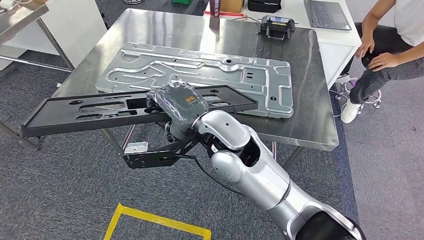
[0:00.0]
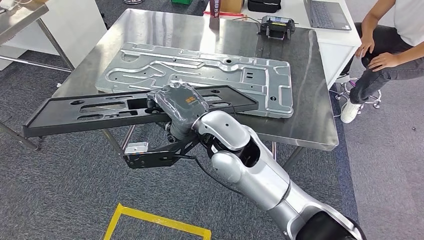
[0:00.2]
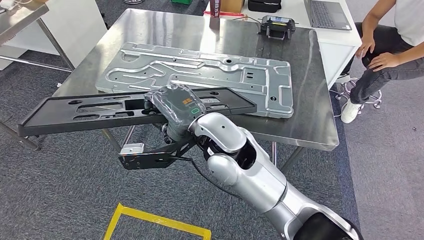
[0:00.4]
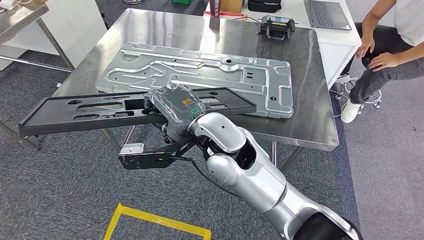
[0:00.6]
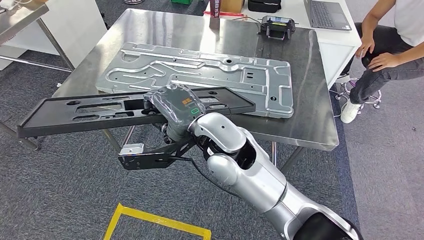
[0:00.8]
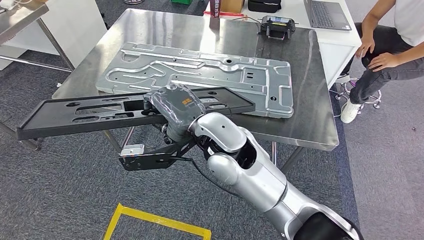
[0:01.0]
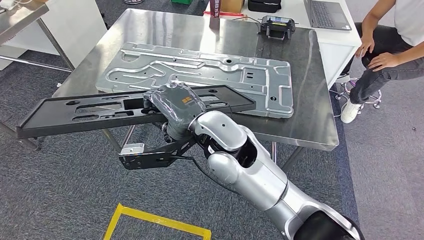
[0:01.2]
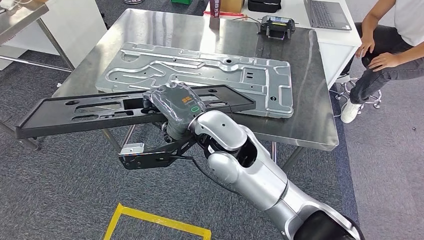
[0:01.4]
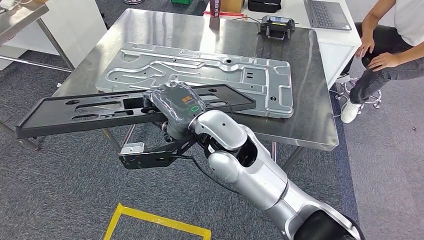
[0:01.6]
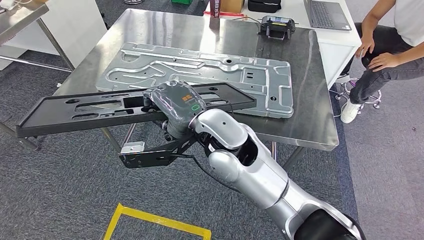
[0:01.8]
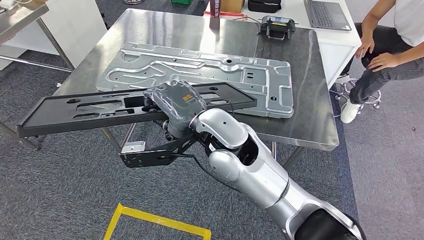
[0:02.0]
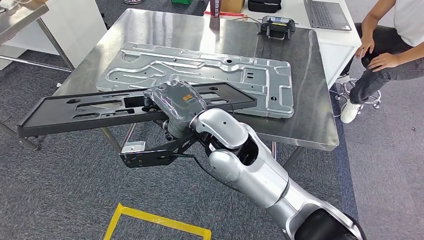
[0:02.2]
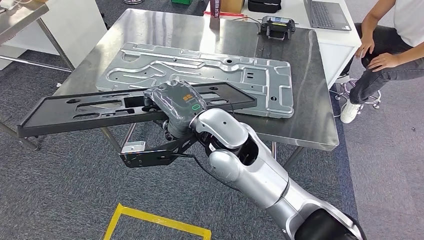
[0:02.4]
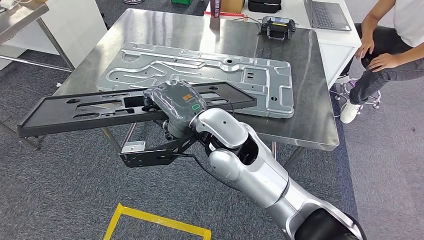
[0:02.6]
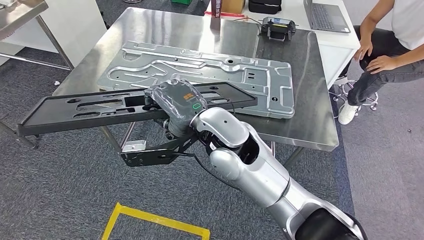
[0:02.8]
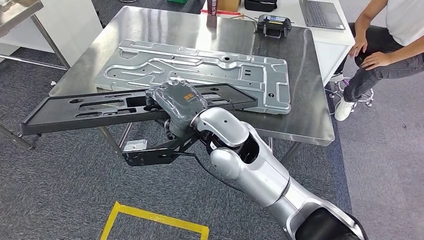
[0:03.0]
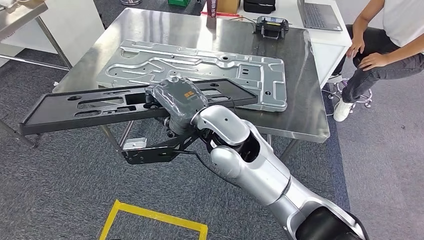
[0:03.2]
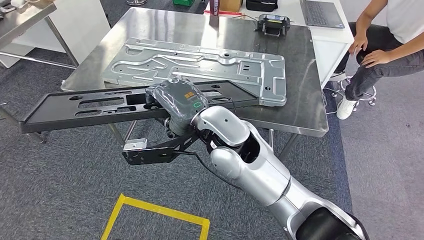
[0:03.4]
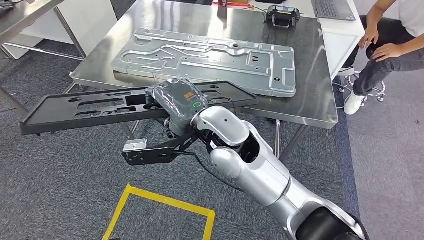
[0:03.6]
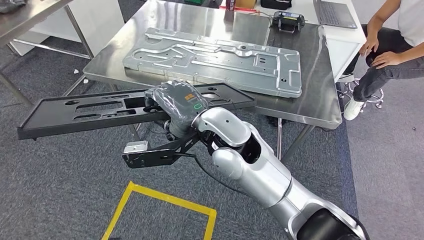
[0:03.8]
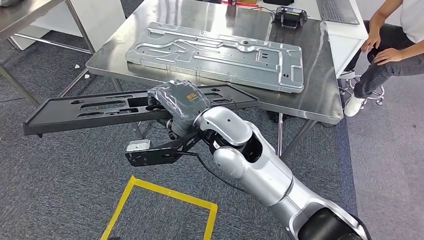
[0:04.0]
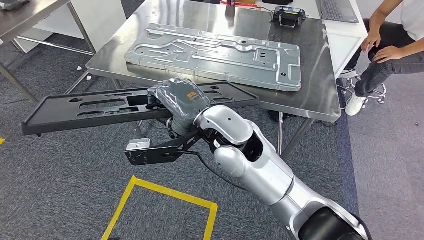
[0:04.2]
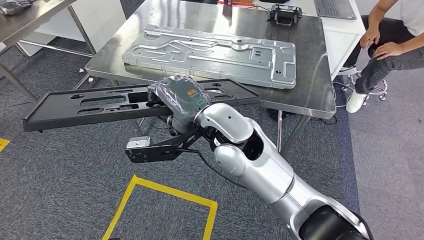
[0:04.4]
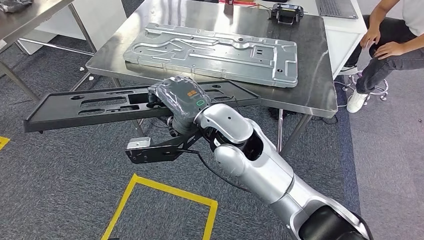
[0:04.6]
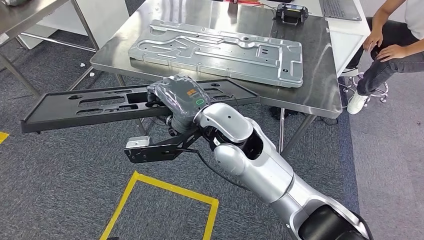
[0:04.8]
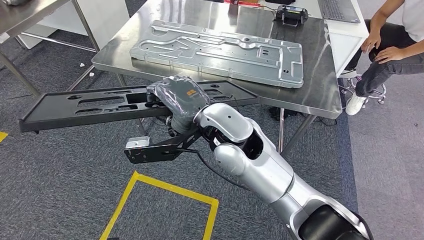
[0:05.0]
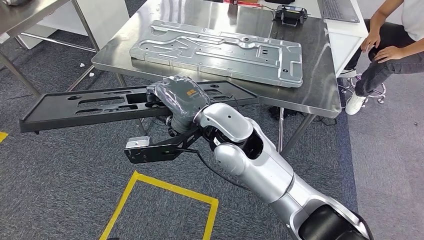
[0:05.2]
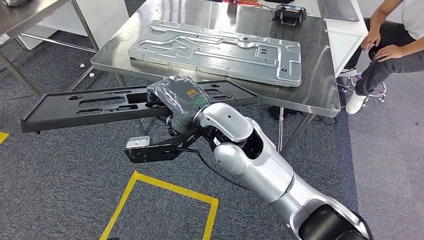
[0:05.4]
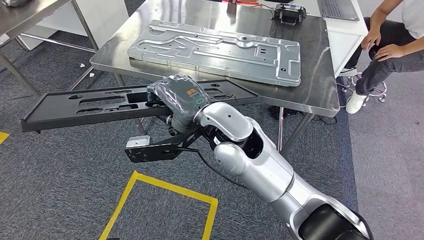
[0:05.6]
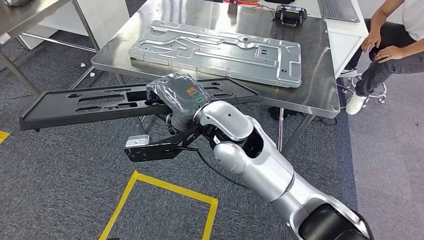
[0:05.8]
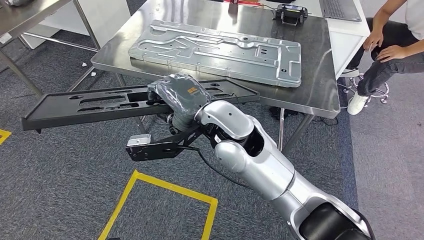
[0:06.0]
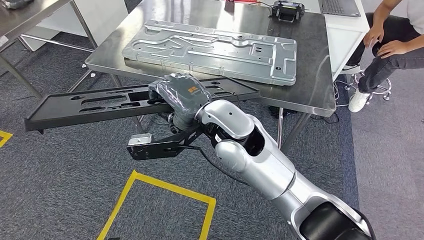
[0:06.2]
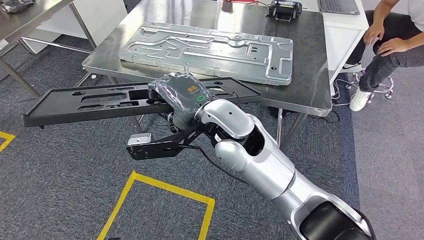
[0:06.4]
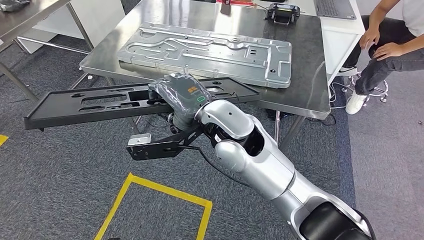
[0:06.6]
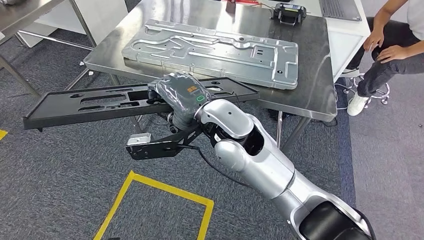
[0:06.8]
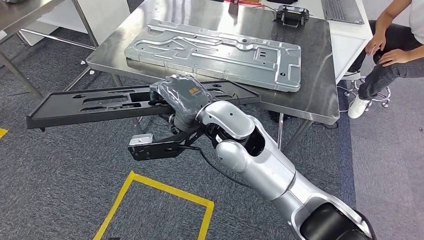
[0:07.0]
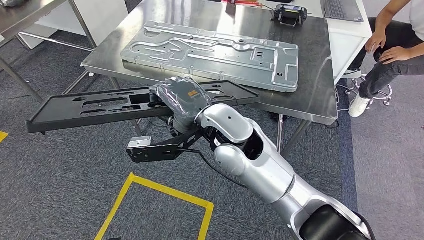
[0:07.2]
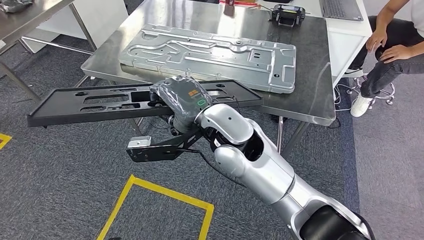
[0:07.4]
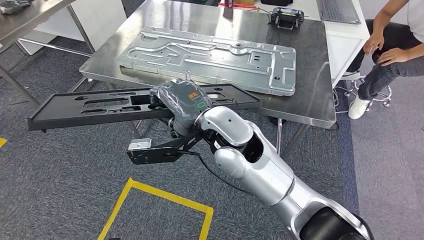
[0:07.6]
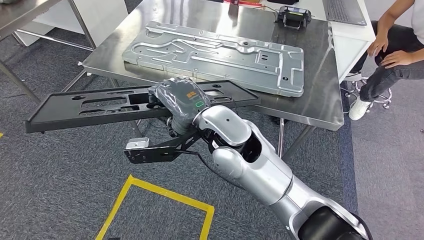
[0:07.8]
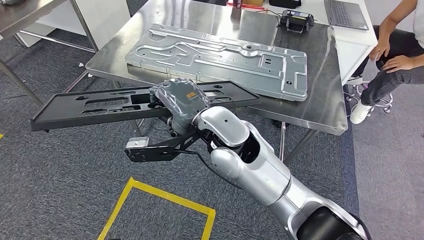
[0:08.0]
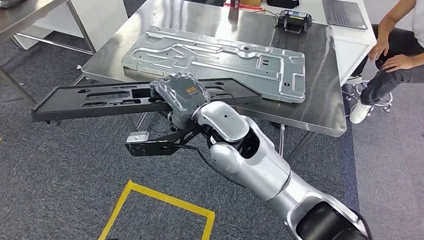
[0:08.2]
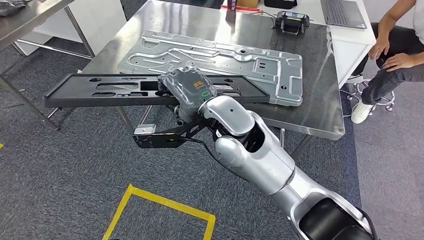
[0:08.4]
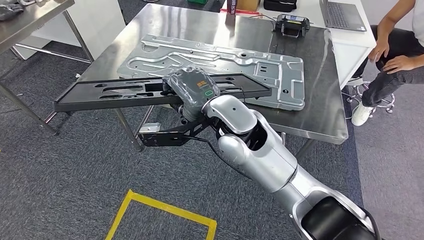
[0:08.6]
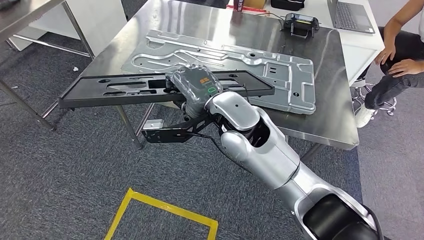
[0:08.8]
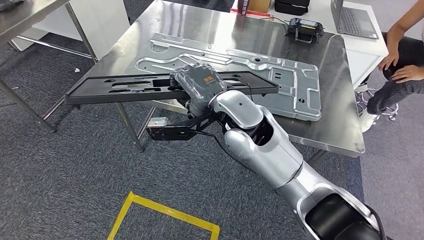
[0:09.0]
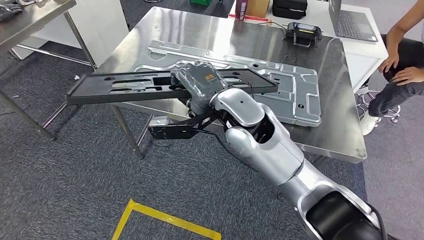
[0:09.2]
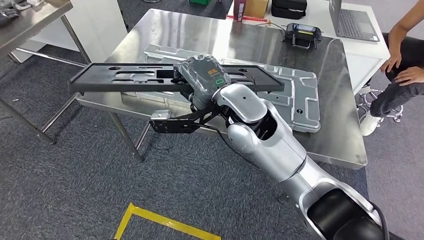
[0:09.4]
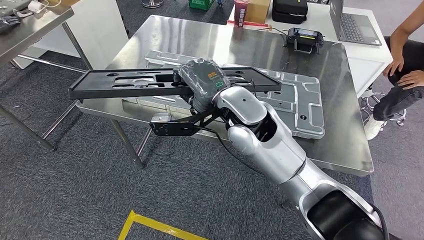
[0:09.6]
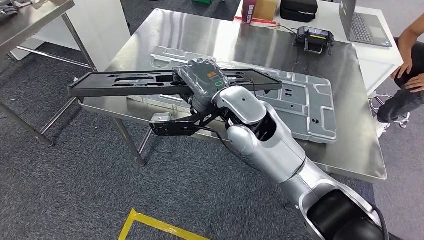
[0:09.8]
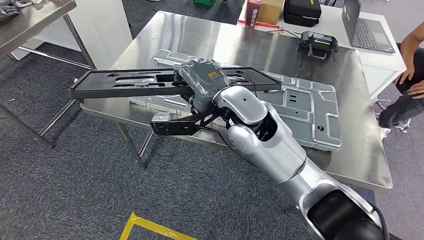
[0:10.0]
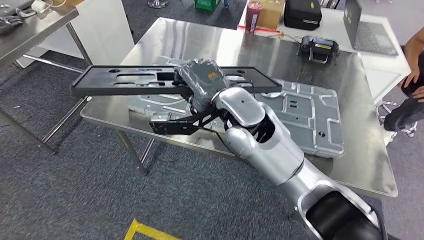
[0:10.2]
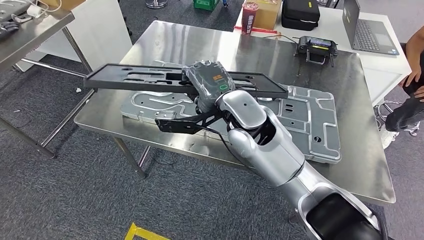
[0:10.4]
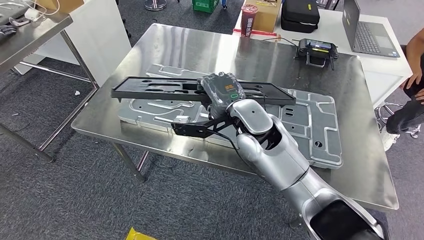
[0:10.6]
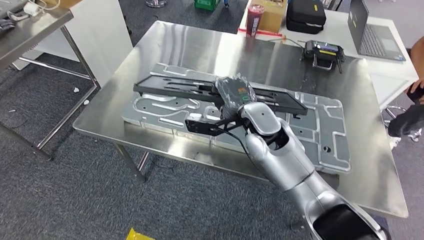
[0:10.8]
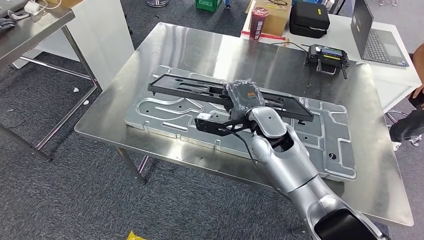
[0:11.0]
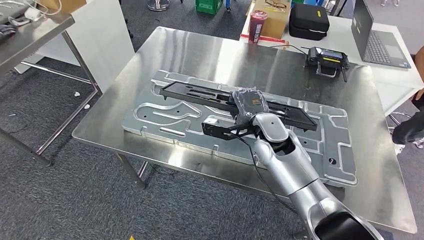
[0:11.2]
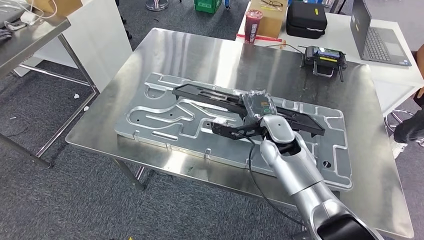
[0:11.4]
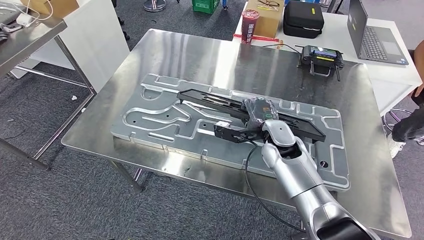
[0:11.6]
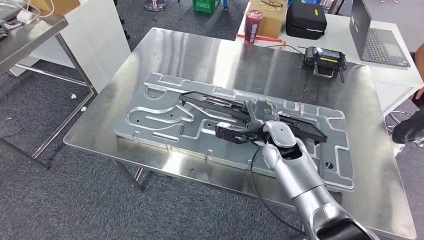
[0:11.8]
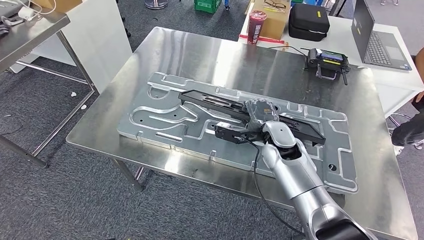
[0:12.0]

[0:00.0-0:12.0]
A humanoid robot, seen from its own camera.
0:00.0 to 0:01.6: Neither hand changes place.

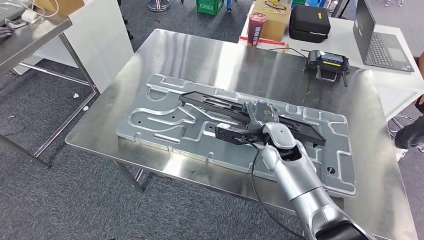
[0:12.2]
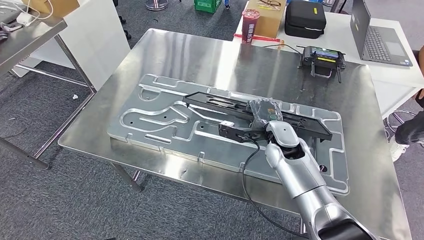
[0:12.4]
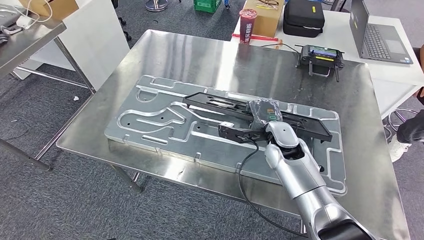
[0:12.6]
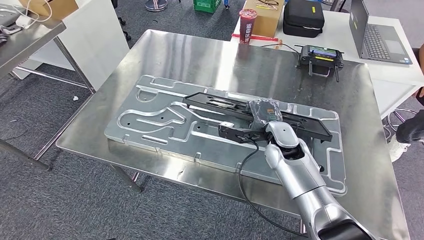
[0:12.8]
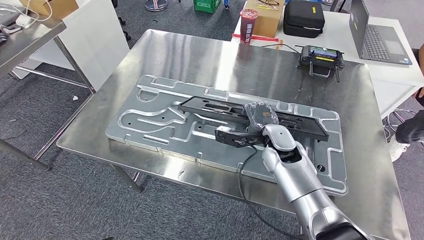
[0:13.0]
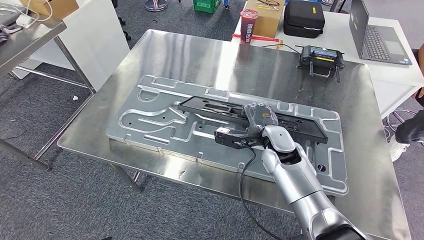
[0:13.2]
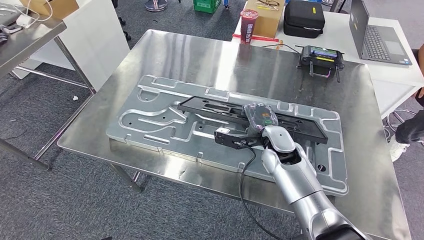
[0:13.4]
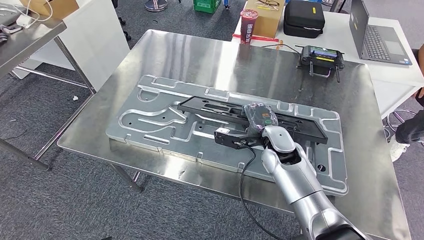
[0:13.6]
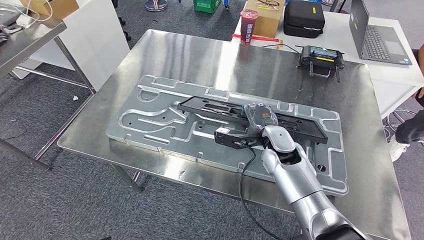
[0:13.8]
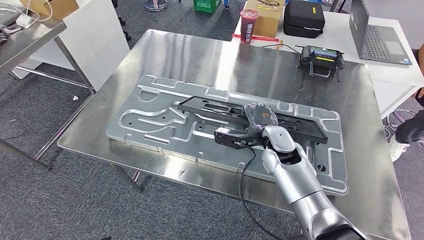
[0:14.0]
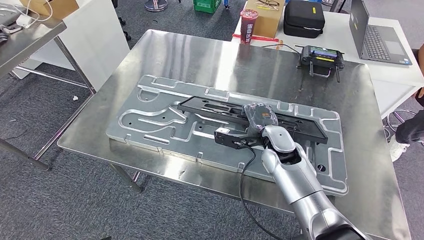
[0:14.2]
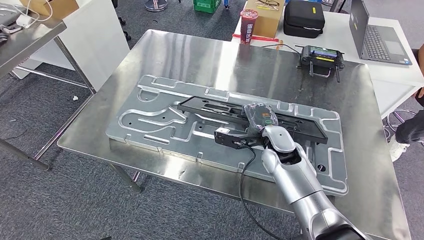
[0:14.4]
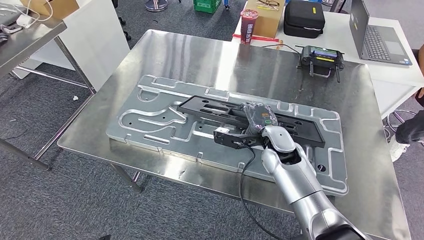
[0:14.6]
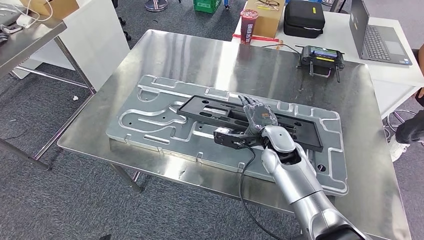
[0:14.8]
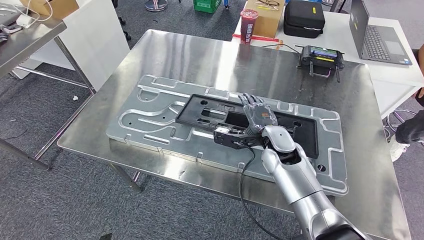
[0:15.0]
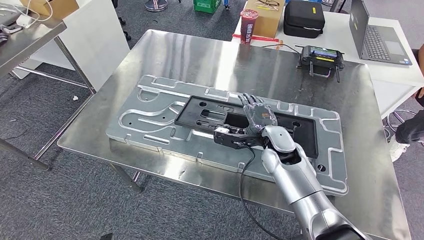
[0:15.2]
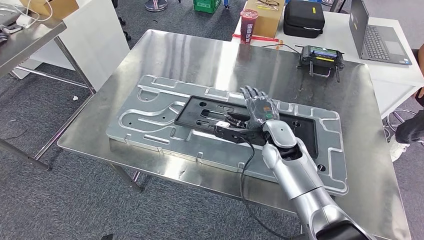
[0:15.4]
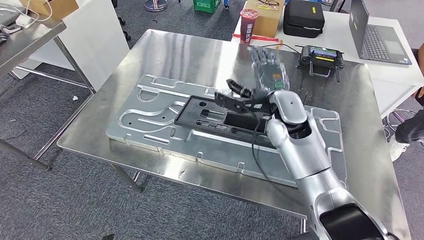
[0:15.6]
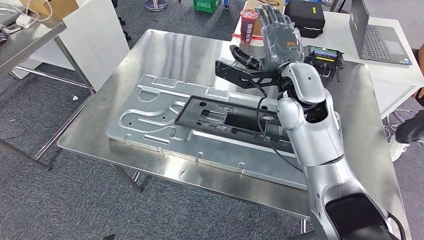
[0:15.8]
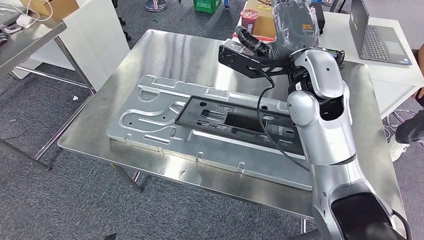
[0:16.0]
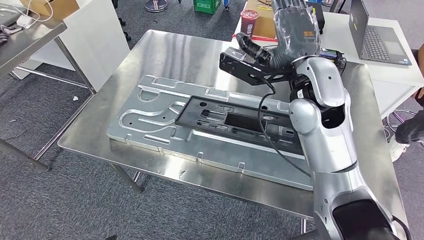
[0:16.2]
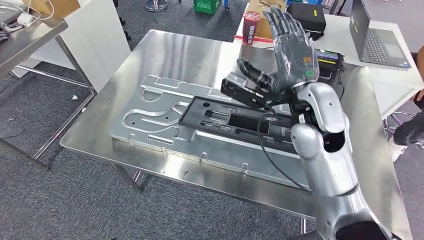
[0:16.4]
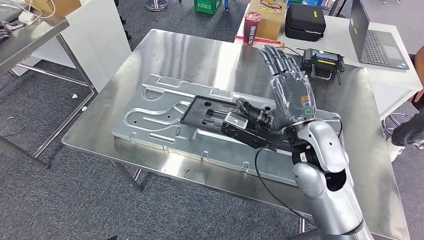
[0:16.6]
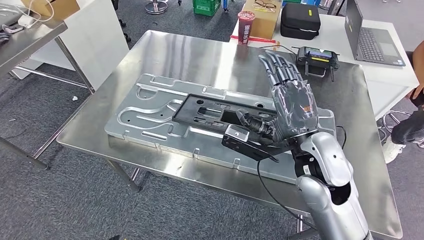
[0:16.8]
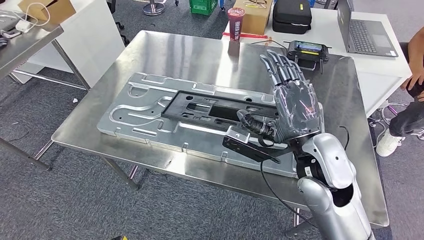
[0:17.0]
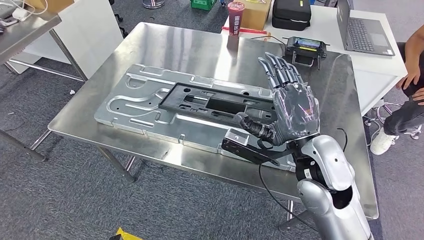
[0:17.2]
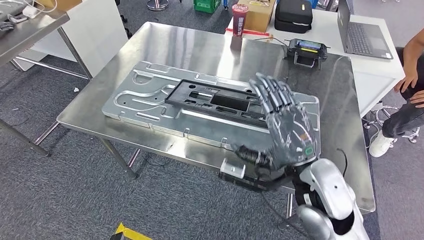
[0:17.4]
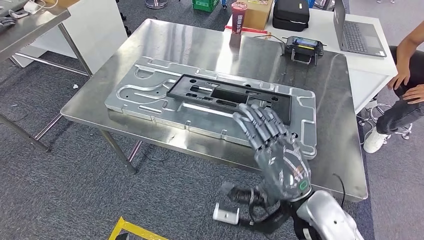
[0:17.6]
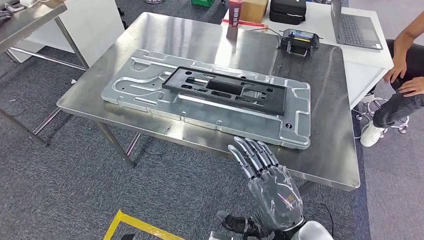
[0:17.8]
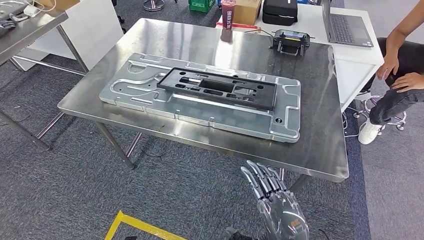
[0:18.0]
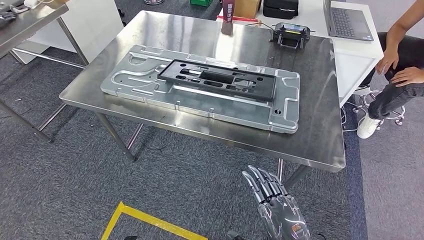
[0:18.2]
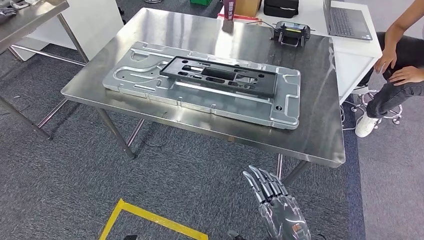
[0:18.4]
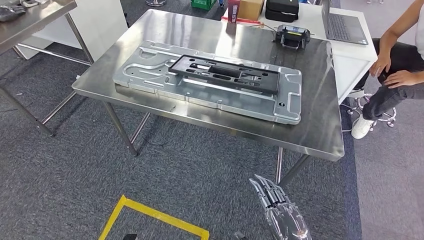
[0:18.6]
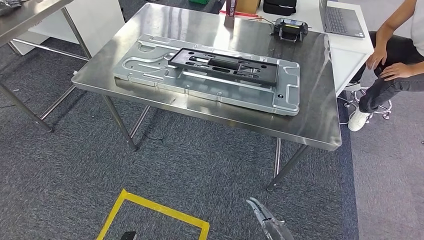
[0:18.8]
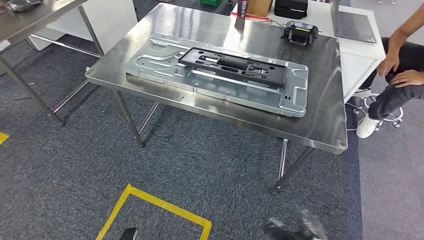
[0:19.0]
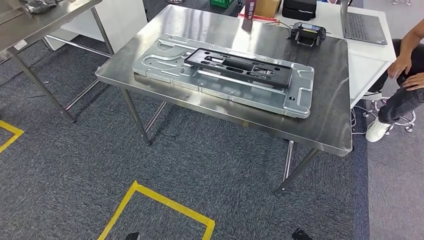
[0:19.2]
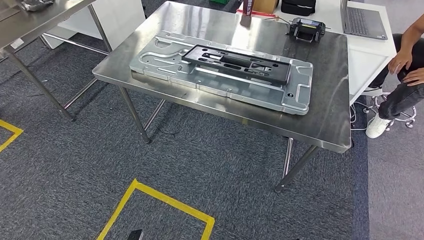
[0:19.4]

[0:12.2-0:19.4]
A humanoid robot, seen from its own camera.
Step, 0:12.2 to 0:19.0: Insert the large material into the corresponding slot on the workbench.
0:13.6 to 0:15.0: Both hands stay put.
